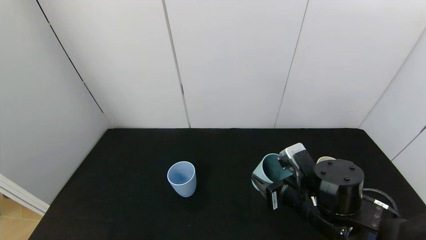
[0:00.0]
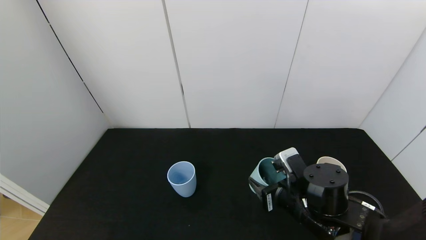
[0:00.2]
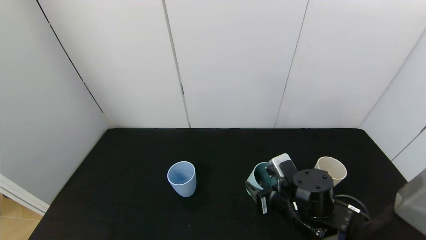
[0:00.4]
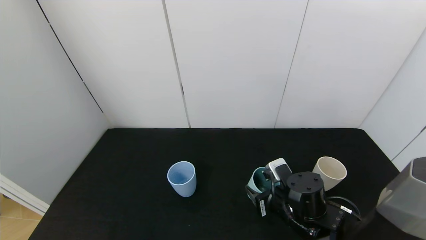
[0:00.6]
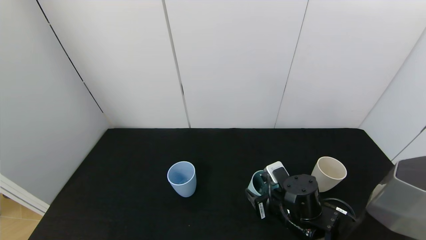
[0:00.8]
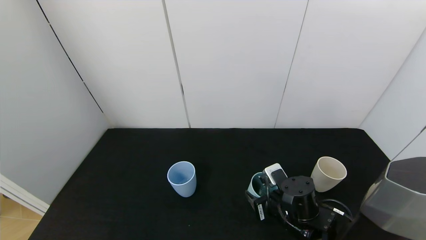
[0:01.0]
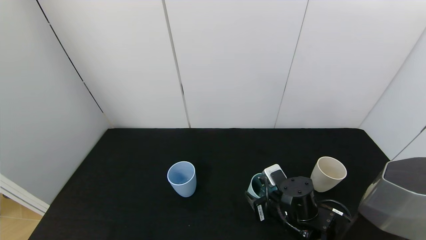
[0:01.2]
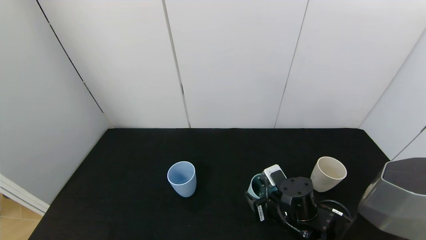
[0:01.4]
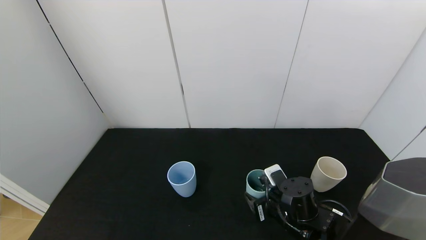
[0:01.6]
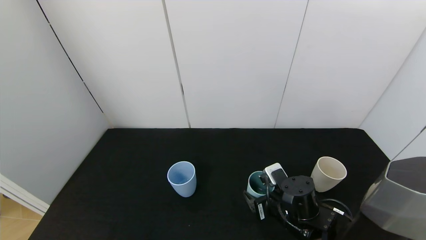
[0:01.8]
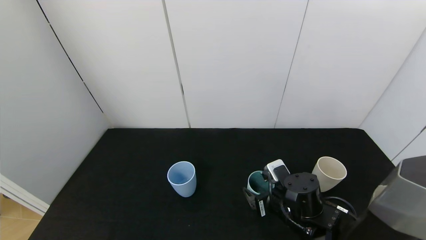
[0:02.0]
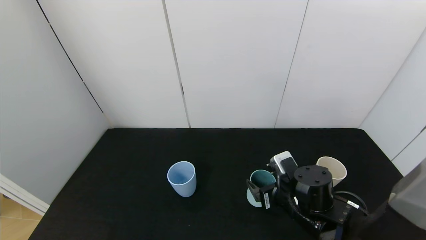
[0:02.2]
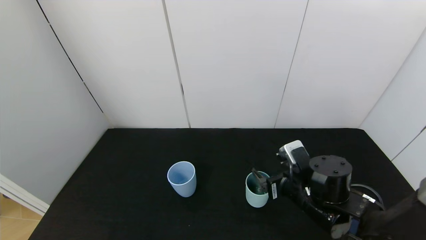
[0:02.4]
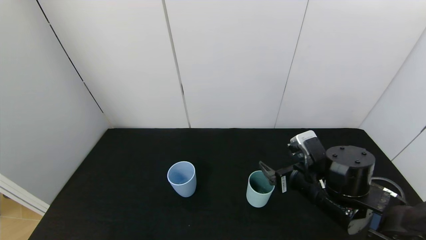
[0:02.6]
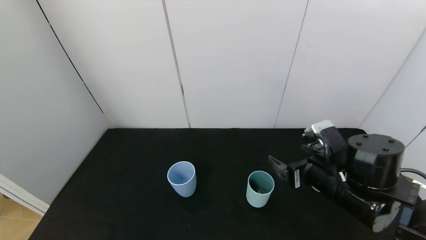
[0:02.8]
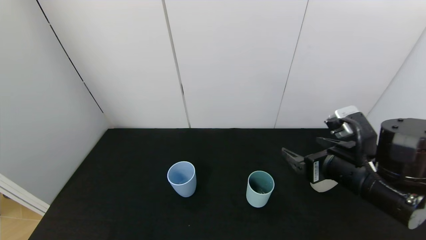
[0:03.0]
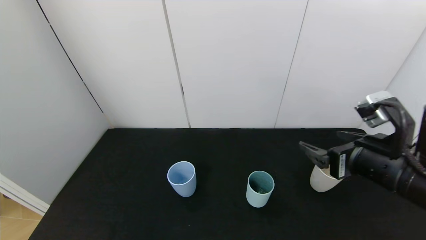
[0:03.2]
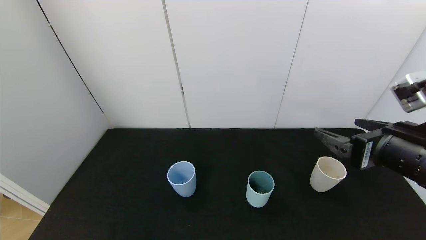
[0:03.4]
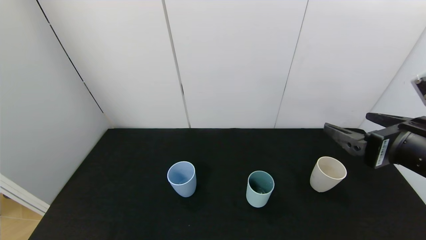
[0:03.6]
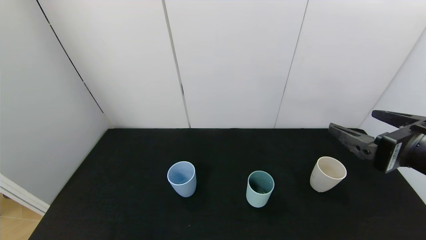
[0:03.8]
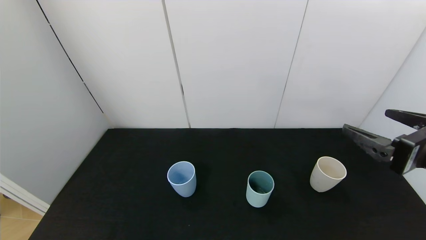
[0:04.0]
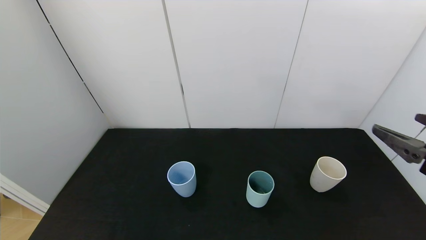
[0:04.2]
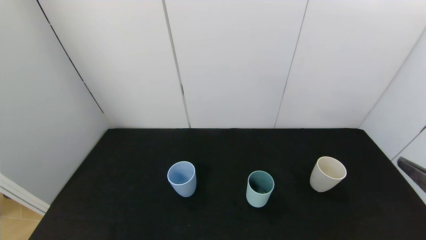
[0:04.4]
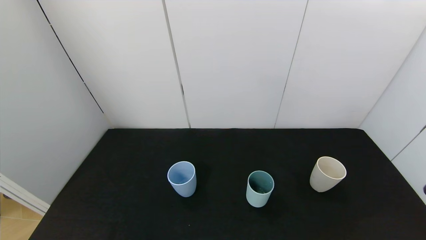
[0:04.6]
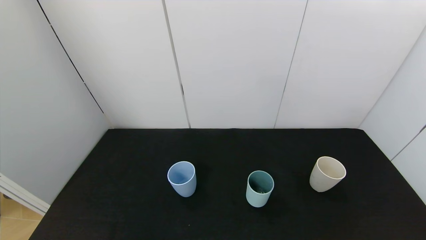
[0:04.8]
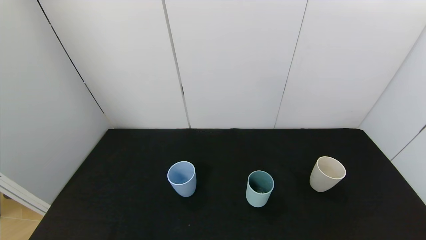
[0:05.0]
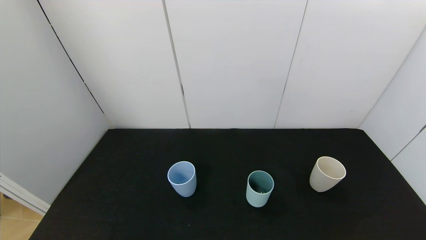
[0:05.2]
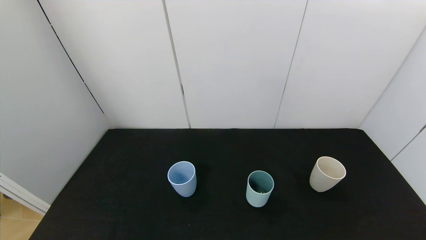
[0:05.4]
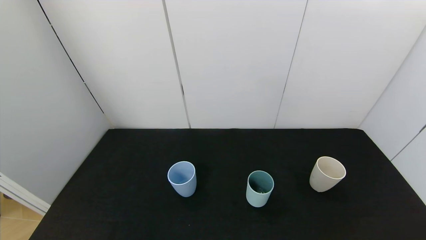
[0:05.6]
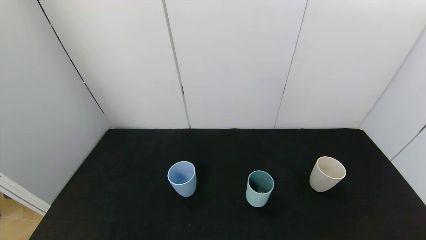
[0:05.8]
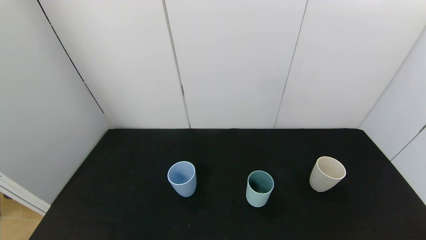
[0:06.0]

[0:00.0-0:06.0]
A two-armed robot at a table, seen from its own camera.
Task of the whole recording: use the gripper to pour the water into the other two cups on black table.
Step, 0:00.0 to 0:02.4: Place the green cup with the right gripper.
0:00.0 to 0:01.6: The right gripper goes some 10 cm downward, and opens its fingers.
0:01.6 to 0:03.0: The right gripper shifts some 15 cm upward and to the right, and opens.
0:03.0 to 0:04.4: The right gripper shifts roughly 15 cm to the right and backward.
0:04.4 to 0:06.0: The right gripper heads downward and backward, covering some 20 cm.
